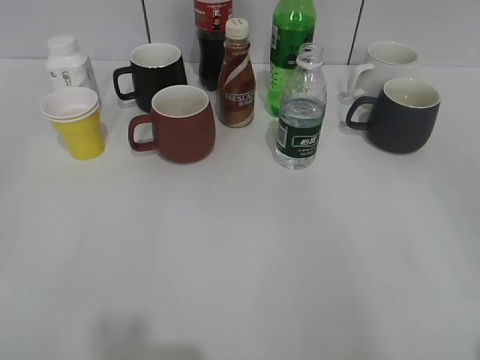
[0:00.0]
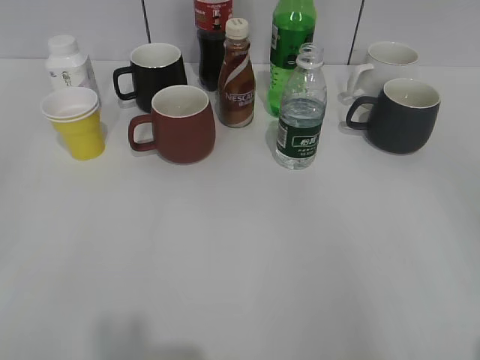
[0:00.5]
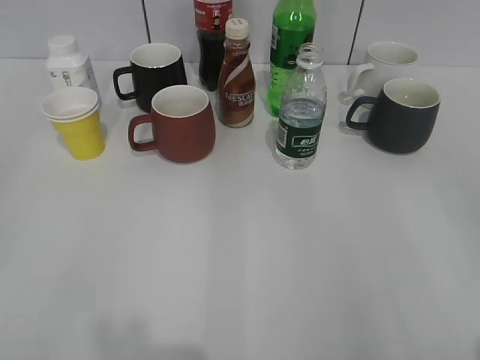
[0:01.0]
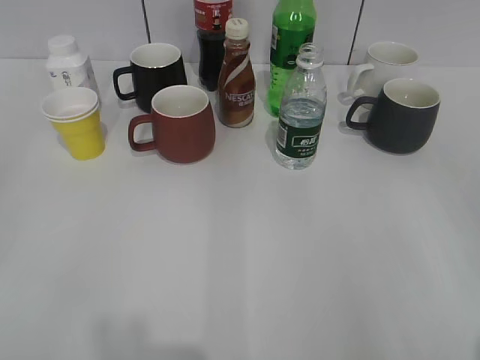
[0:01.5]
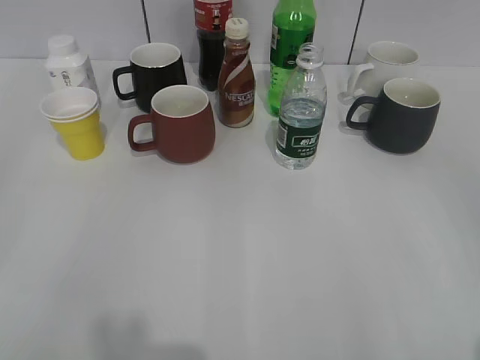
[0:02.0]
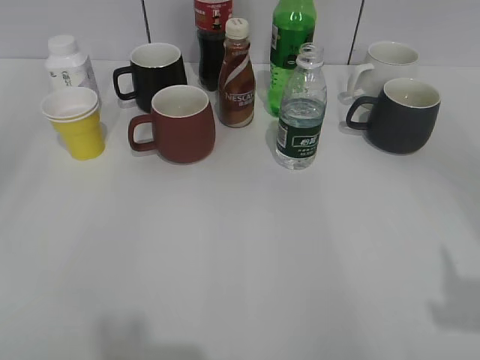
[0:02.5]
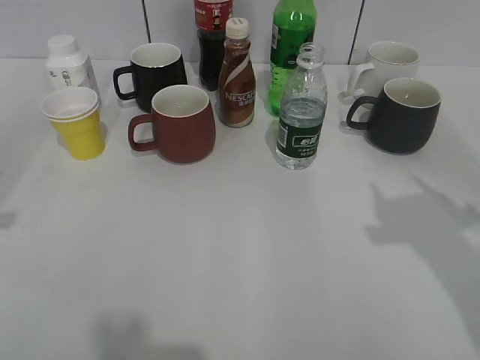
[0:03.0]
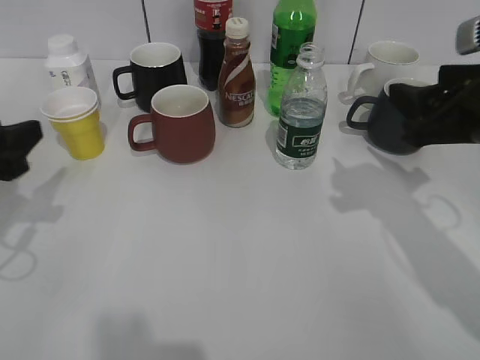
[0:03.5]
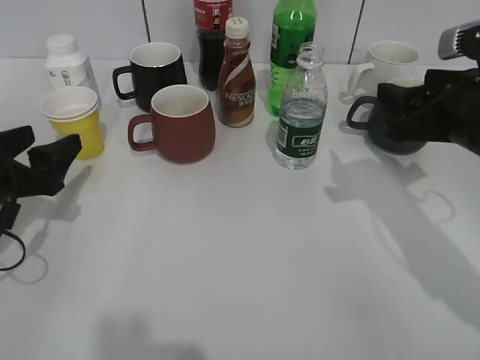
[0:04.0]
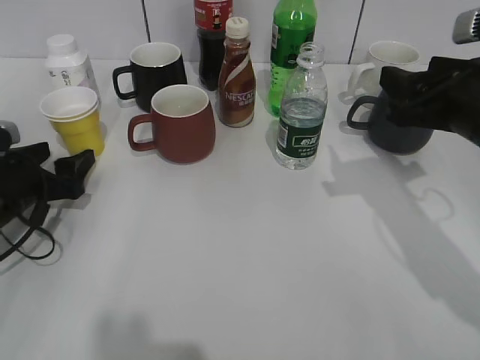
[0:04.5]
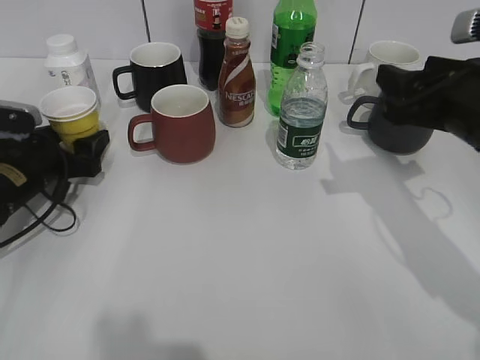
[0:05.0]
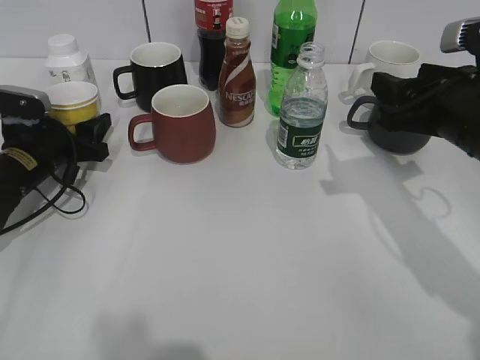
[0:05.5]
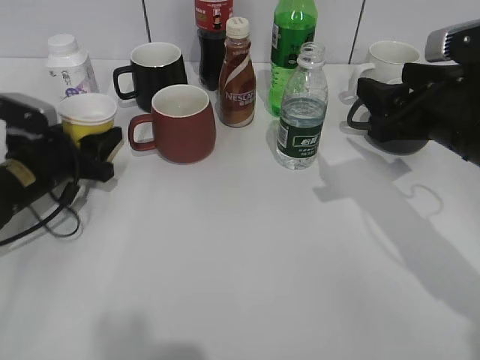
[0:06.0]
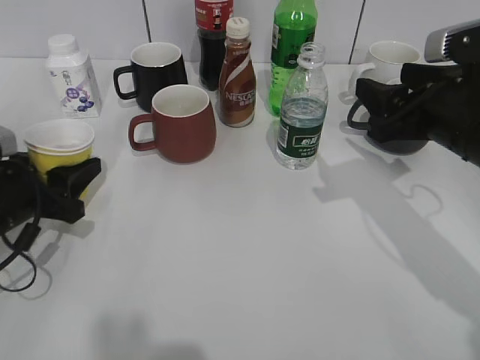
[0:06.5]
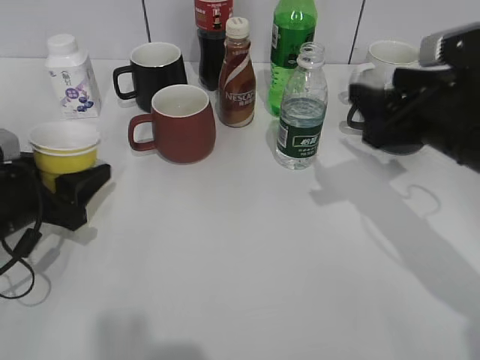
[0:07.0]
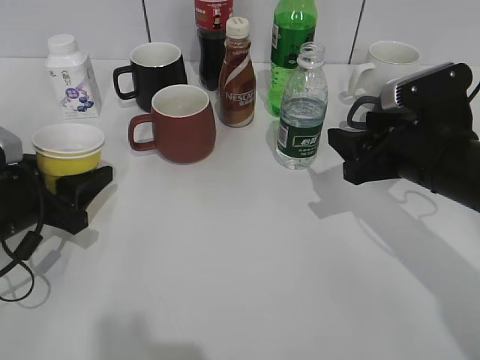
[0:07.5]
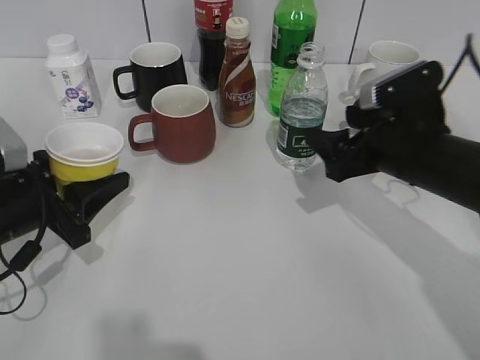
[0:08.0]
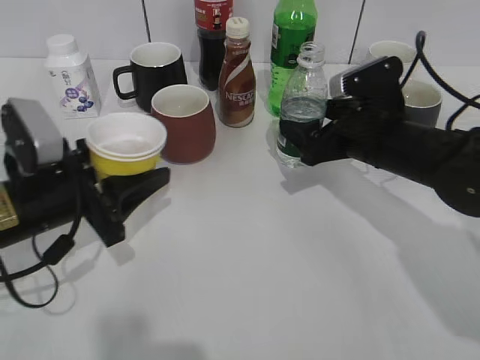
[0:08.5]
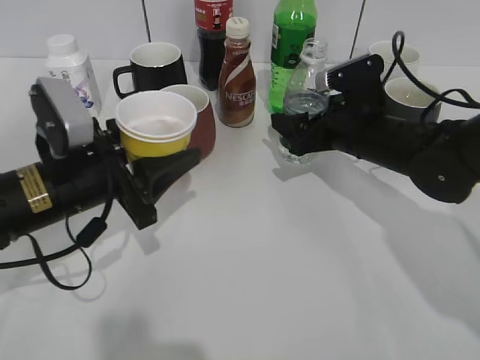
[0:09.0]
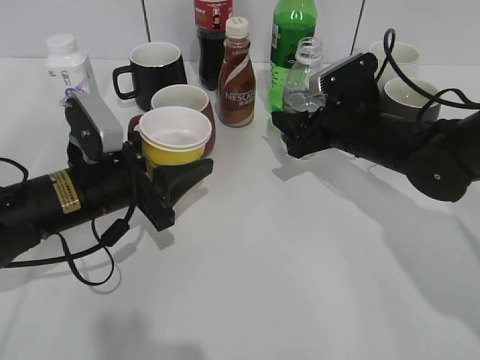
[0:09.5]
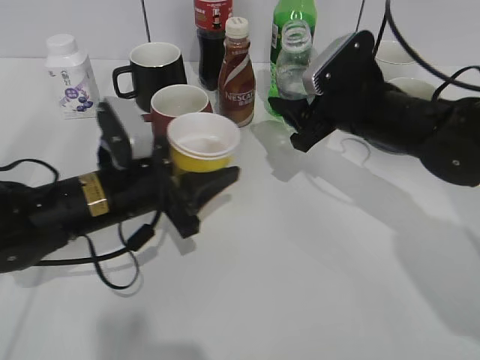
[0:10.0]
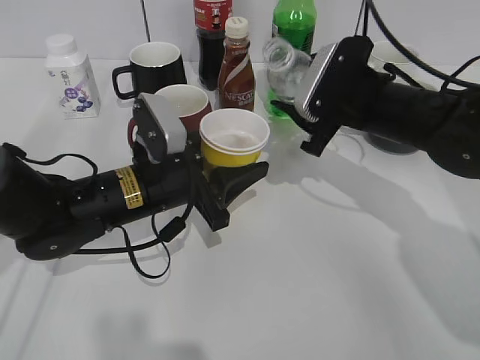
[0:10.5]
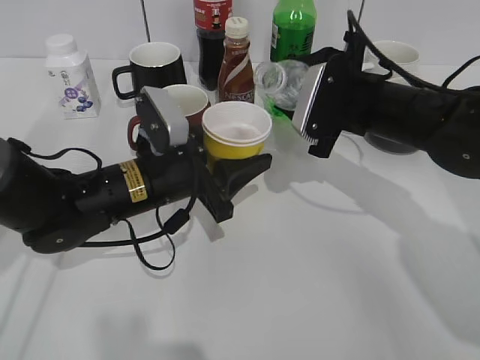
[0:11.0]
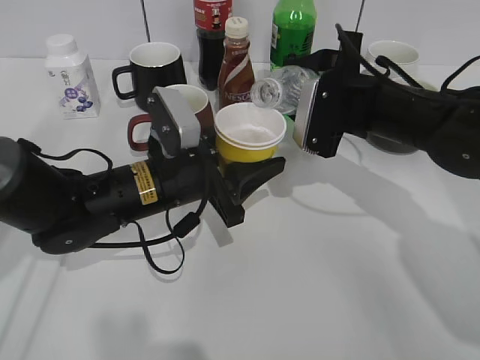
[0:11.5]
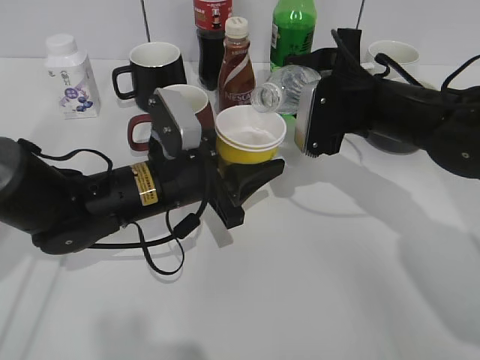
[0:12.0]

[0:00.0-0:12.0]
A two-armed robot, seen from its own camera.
Step, 0:02.0 to 0:05.5: Grasp the yellow paper cup with left gripper.
Step, 0:06.0 to 0:06.5: Lift the yellow paper cup with left gripper.
Step, 0:07.0 to 0:09.0: Grasp the bottle with water with right gripper.
0:02.0 to 0:04.0: The left gripper goes about 30 cm forward and downward, and opens its fingers; the right gripper shifts about 25 cm forward.
0:04.0 to 0:06.0: The left gripper goes about 10 cm forward and downward, and closes up.
0:06.0 to 0:08.0: The right gripper moves approximately 5 cm, and opens its fingers. Meanwhile the left gripper is displaced backward by some 10 cm.
0:08.0 to 0:10.0: The left gripper heads to the right, covering about 10 cm. The right gripper travels forward by about 5 cm, and closes its fingers.
0:10.0 to 0:12.0: The left gripper shifts roughly 5 cm to the right.

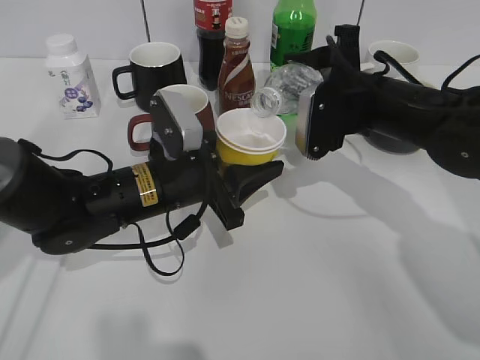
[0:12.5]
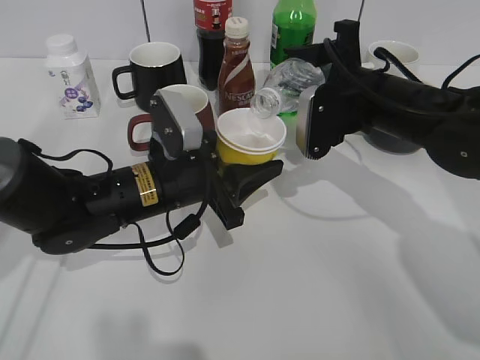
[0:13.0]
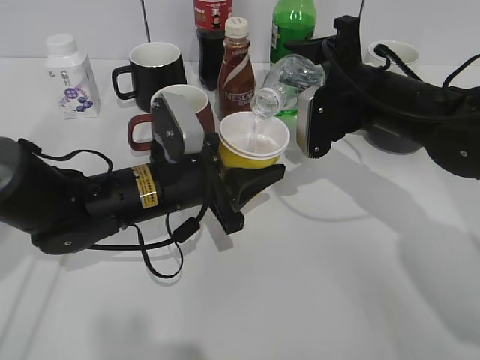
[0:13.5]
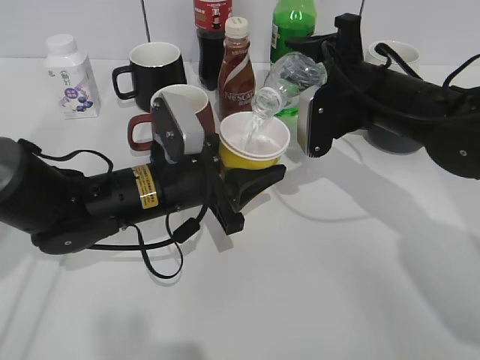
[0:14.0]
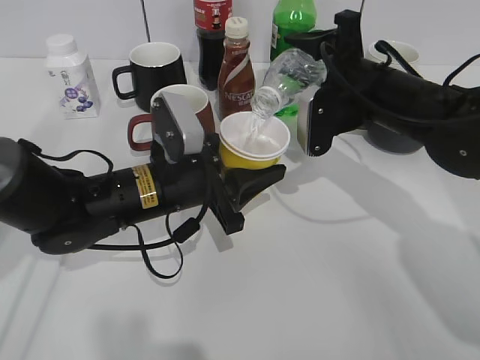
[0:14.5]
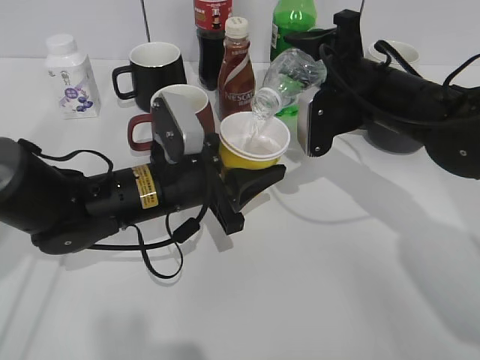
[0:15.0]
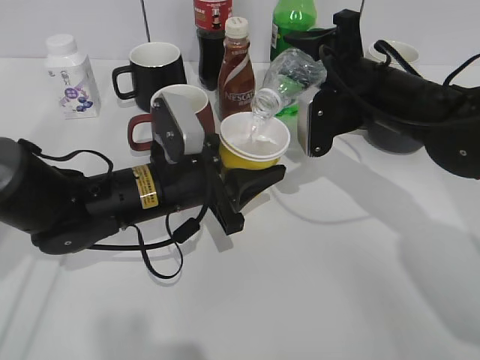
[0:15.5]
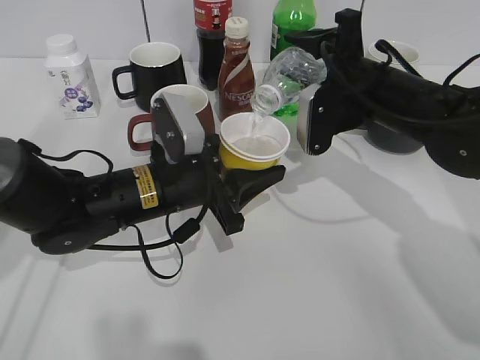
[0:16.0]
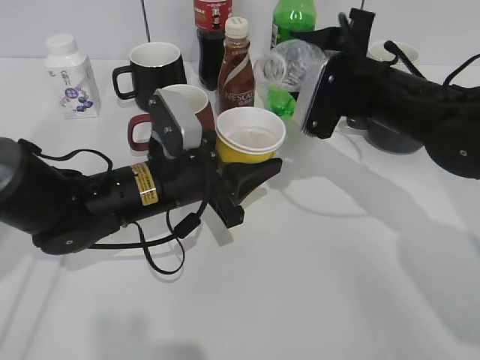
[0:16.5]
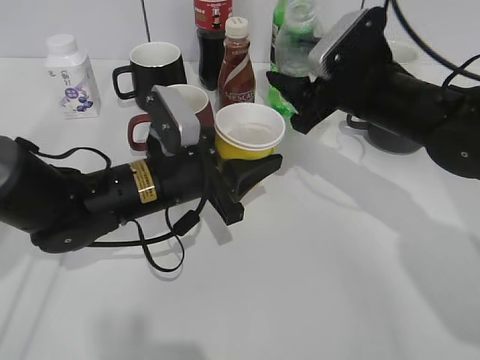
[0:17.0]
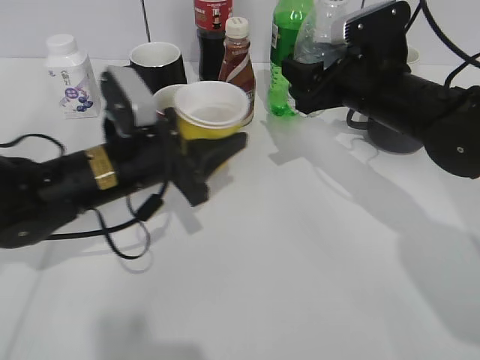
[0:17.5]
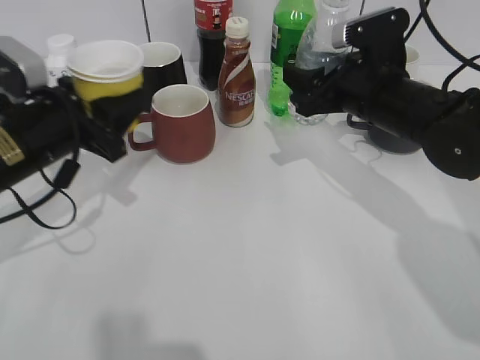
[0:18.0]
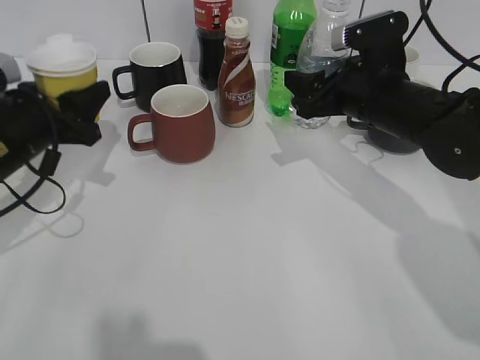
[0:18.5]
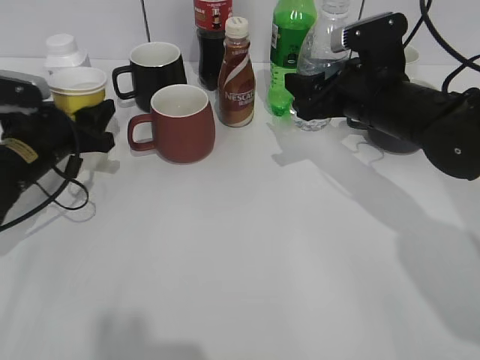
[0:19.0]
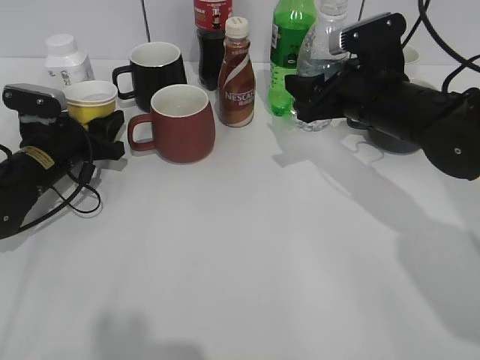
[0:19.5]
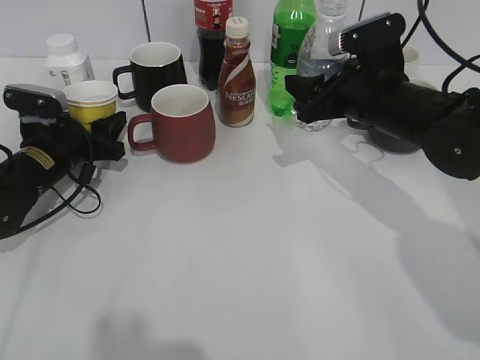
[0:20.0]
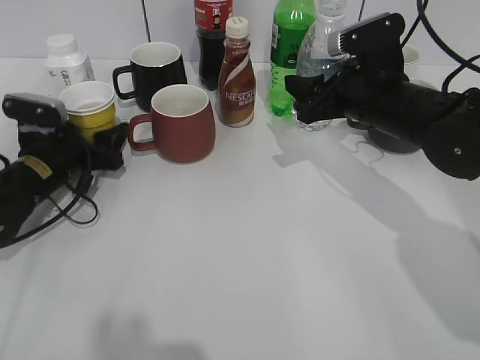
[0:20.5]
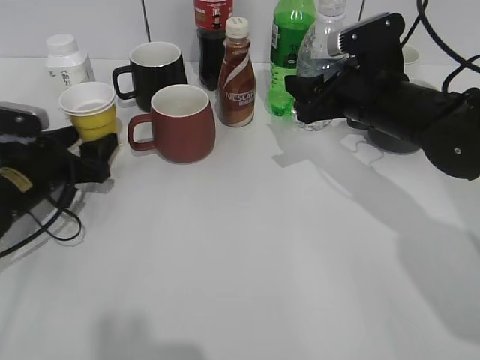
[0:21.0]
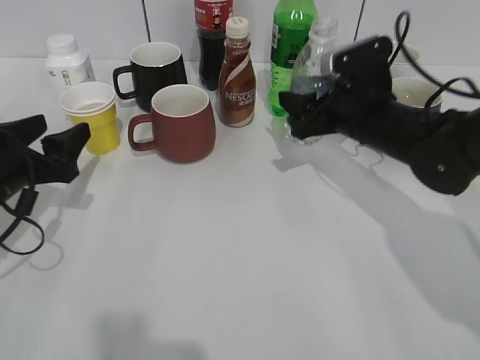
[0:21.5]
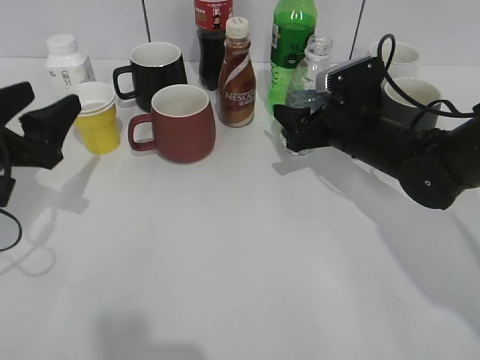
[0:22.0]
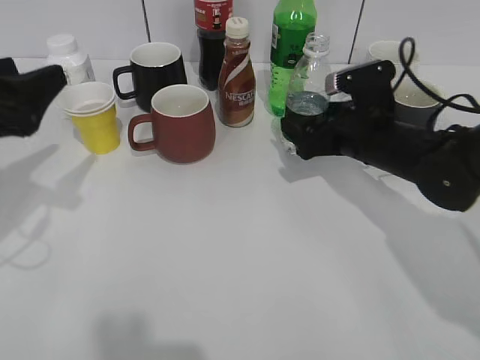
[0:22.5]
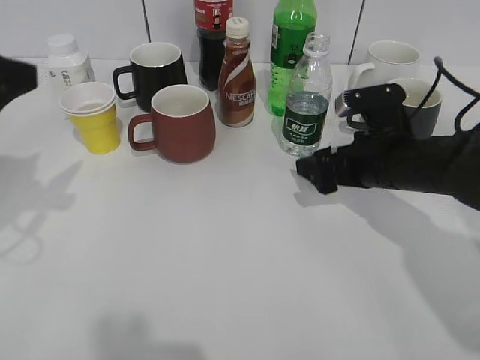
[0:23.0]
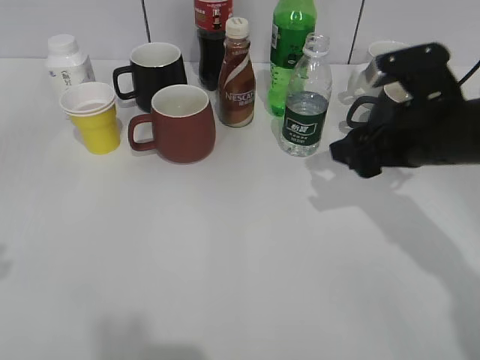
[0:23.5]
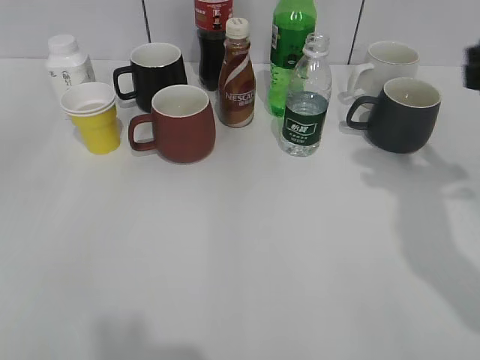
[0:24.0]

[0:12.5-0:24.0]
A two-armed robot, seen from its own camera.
Step, 0:12.5 to 0:16.5: Pour the water from bottle to cup with right gripper.
Step, 0:17.0 to 0:20.5: Place the yellow paper cup on the table with left gripper.
Step, 0:21.5 to 0:22.5: Place the water bottle on the table with right gripper.
0:12.5 to 0:16.5: There are only small adjustments of the grippers.
0:16.5 to 0:18.5: The left gripper heads to the left, covering about 15 cm.
0:18.5 to 0:20.0: The left gripper is displaced downward and forward by some 10 cm.
0:20.0 to 0:22.0: The right gripper goes approximately 5 cm downward; the left gripper goes roughly 15 cm backward and upward, and opens.
0:22.0 to 0:24.0: The right gripper shifts some 20 cm upward, backward and to the right, and opens its fingers; the left gripper heads backward and upward, covering approximately 20 cm.

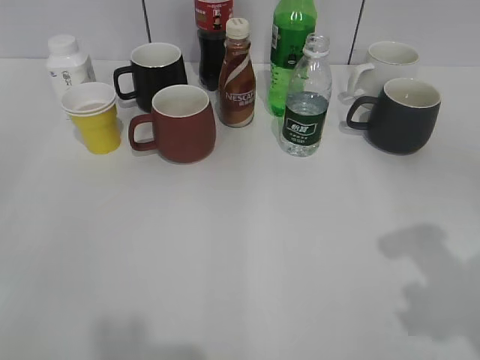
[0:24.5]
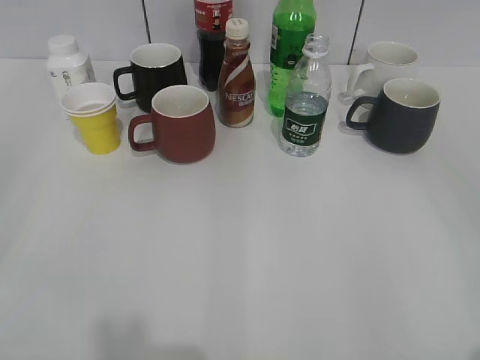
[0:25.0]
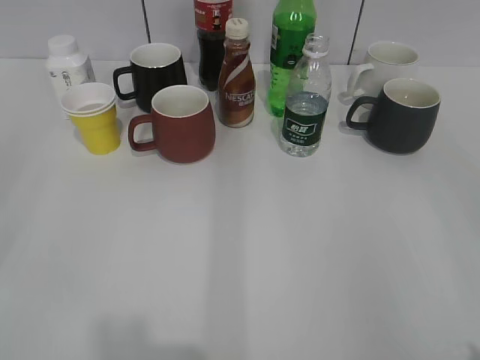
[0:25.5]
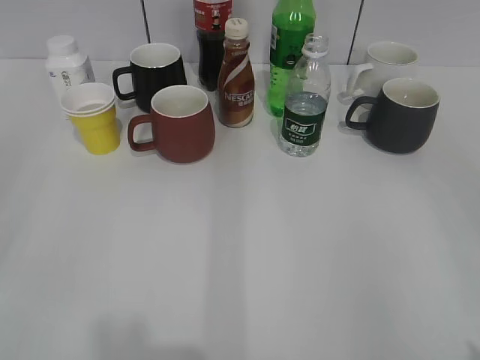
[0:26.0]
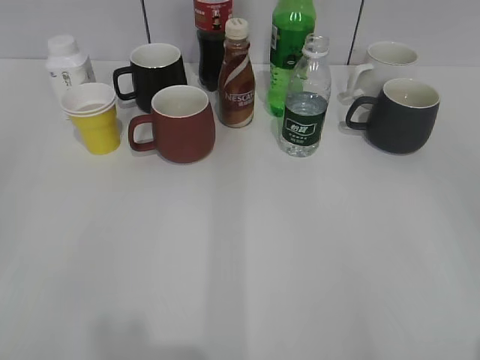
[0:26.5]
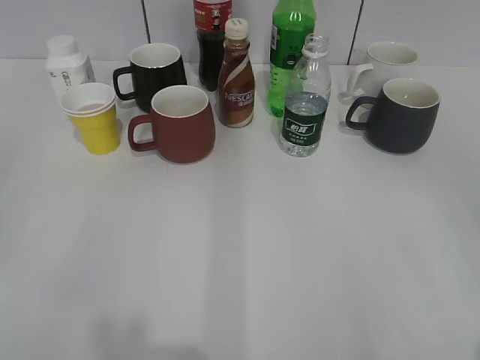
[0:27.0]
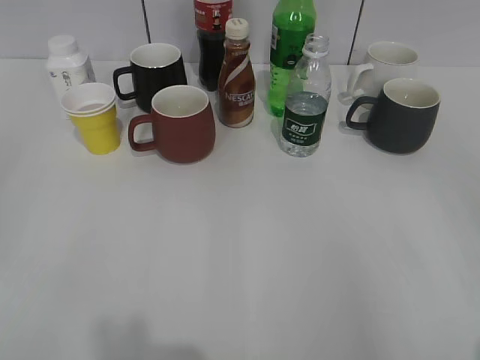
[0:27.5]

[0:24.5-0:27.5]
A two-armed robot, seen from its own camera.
0:24.5 to 0:26.0: The right gripper shifts some 15 cm backward.
